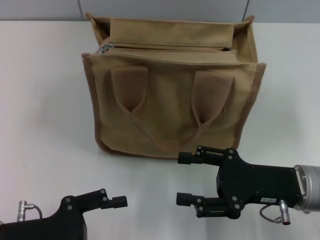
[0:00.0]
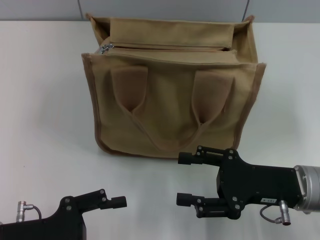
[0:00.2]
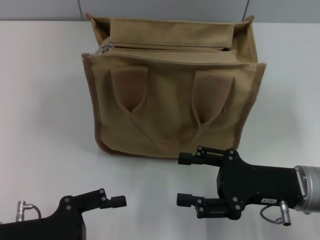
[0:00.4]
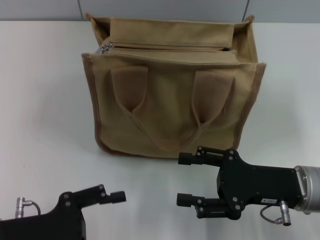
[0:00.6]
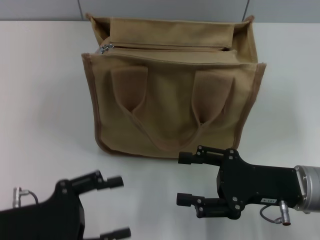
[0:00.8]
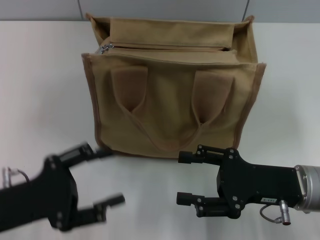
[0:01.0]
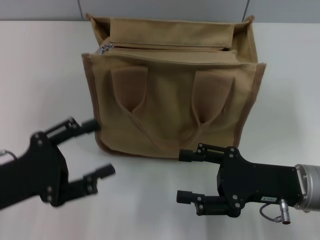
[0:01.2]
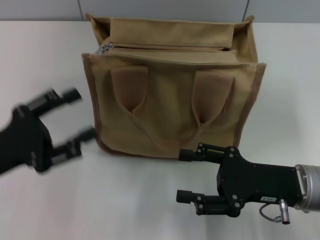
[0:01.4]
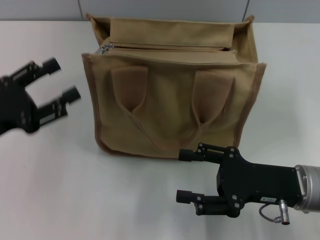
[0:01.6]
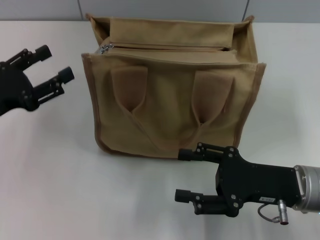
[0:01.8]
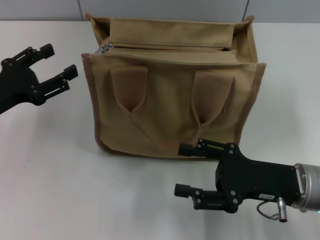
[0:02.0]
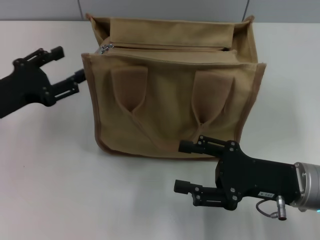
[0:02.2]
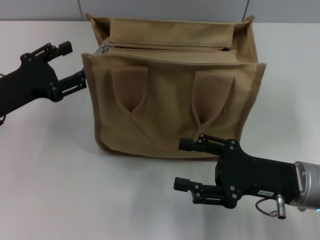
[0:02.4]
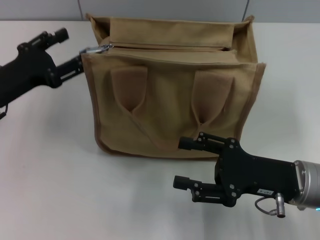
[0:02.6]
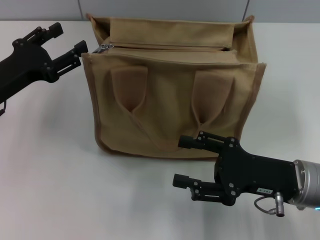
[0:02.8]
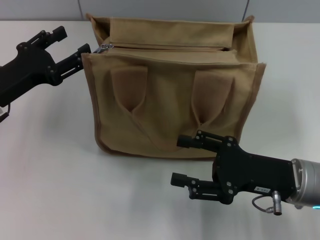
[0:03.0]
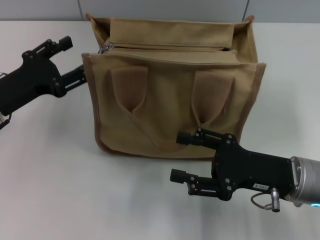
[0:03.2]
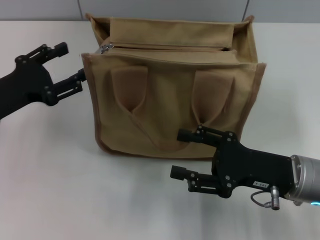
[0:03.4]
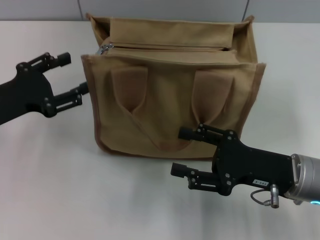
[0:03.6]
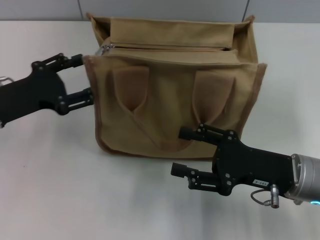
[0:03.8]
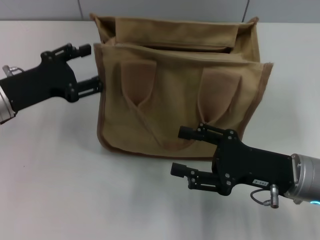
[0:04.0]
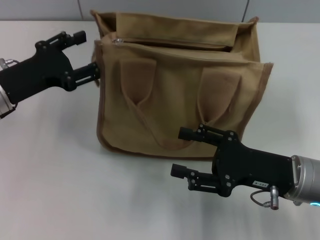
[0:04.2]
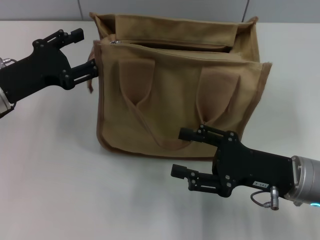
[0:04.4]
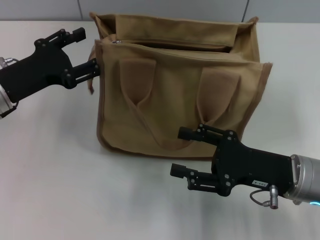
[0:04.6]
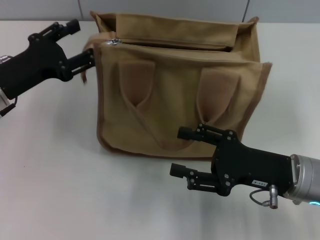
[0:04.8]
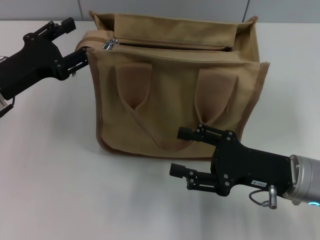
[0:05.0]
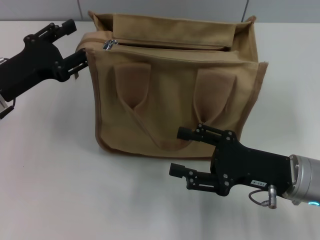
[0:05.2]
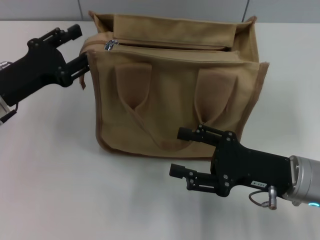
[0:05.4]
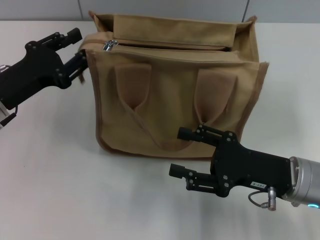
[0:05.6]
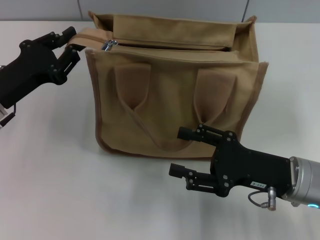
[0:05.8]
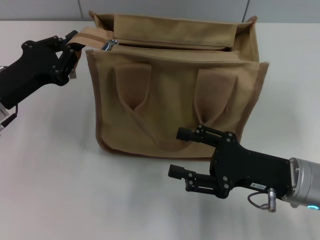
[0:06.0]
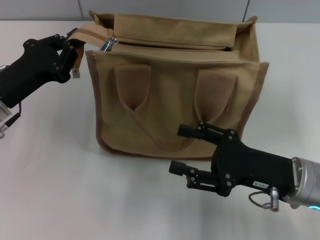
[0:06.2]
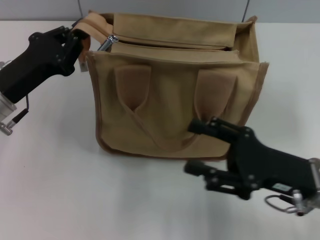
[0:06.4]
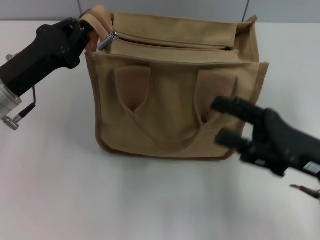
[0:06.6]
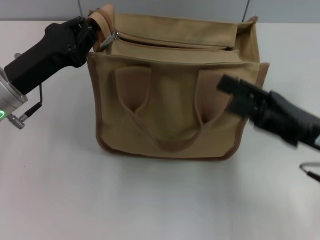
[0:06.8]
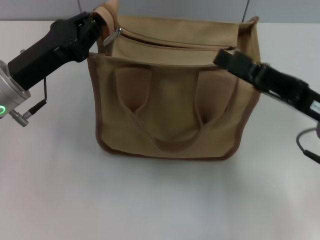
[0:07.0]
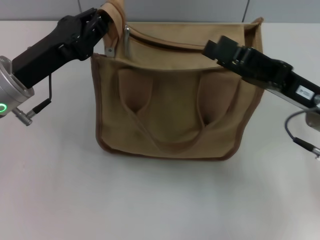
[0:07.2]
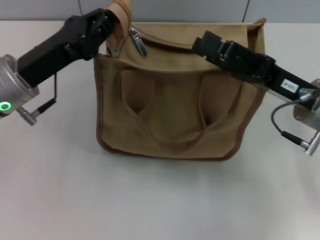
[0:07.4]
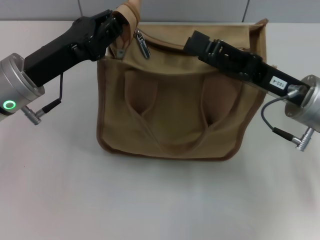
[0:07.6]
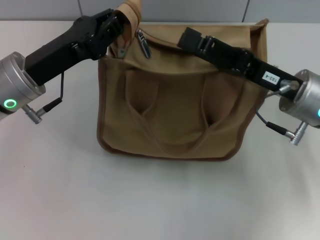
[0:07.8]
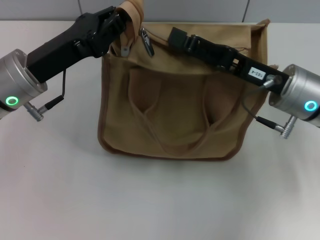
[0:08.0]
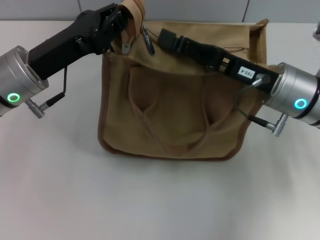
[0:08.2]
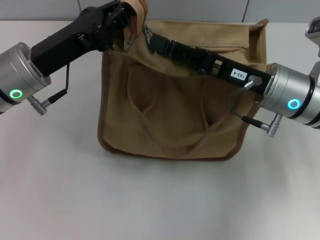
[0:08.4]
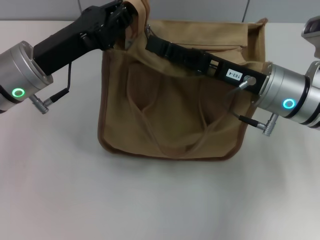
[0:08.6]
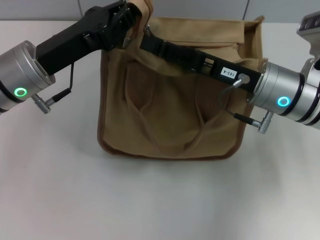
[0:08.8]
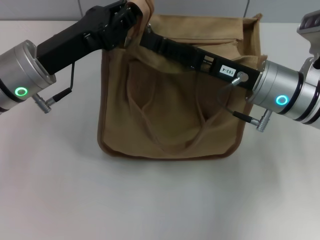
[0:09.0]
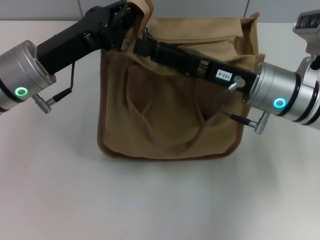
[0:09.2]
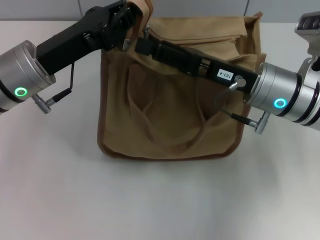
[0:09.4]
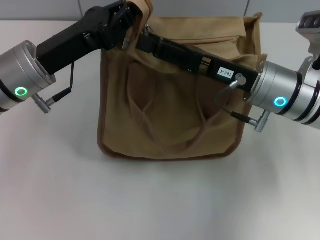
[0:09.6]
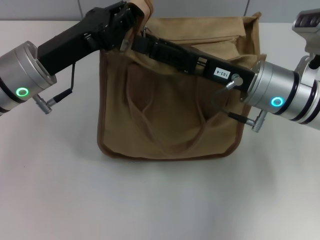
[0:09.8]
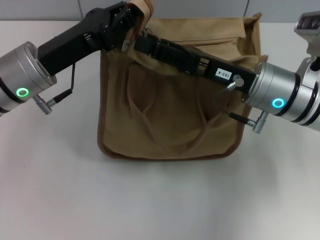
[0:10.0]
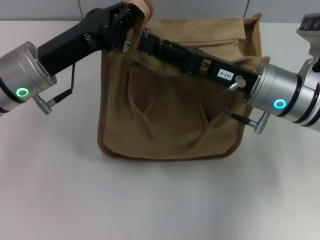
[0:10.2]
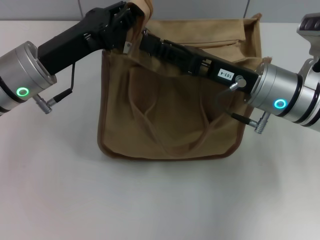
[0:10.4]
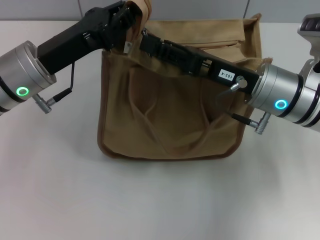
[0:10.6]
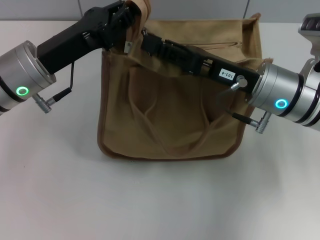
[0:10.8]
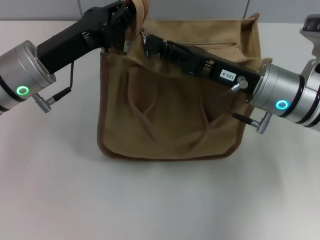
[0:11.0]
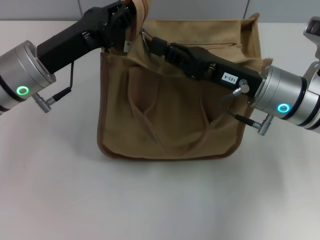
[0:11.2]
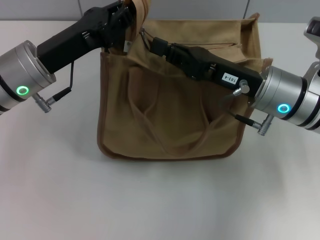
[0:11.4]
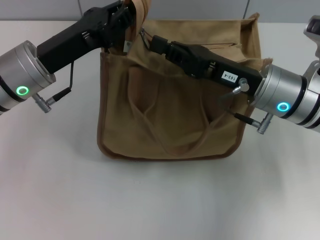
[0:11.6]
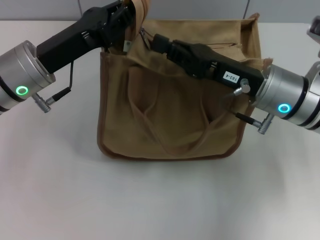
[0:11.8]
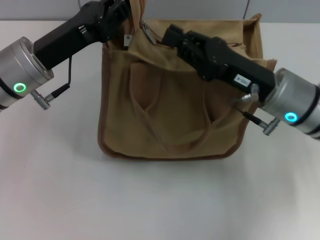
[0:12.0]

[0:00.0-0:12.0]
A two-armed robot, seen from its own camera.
0:00.0 to 0:01.6: The left gripper travels forward and upward by about 10 cm.
0:01.6 to 0:03.0: The left gripper moves forward, some 5 cm.
0:03.0 to 0:04.4: The grippers move only a little.
0:04.4 to 0:06.0: The left gripper closes up.
0:06.0 to 0:07.6: The left gripper moves to the right, some 5 cm, and closes its fingers. Meanwhile the right gripper moves forward and upward, approximately 10 cm.
0:07.6 to 0:09.0: The right gripper changes place by roughly 5 cm.
0:09.0 to 0:10.4: The two grippers keep their place.
0:10.4 to 0:12.0: The right gripper closes.

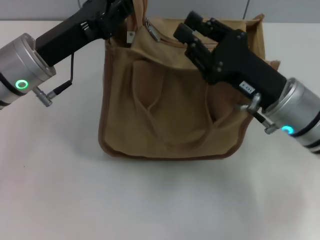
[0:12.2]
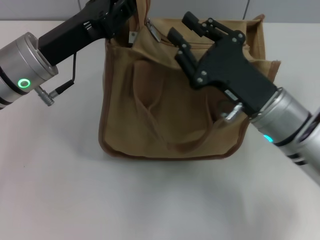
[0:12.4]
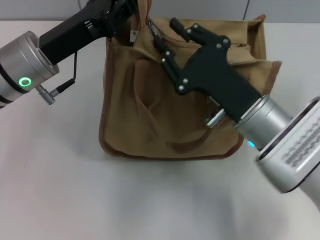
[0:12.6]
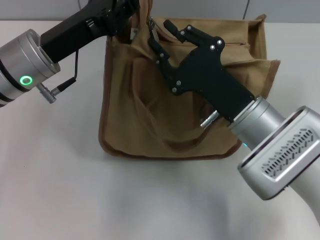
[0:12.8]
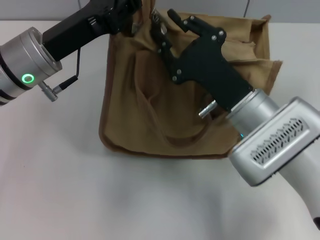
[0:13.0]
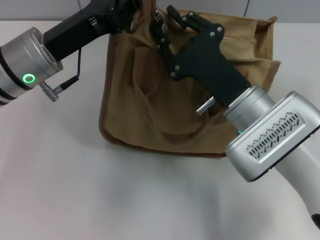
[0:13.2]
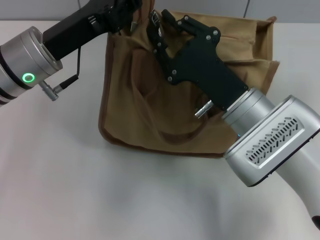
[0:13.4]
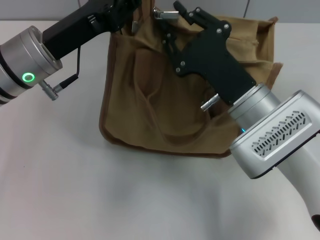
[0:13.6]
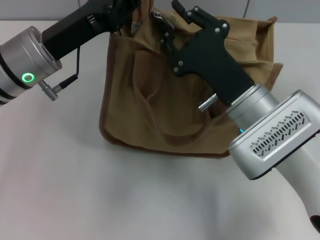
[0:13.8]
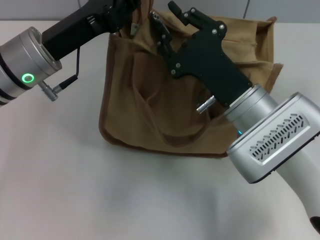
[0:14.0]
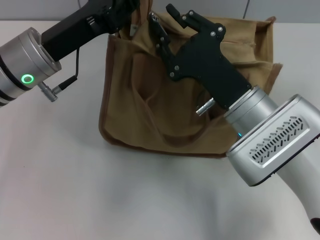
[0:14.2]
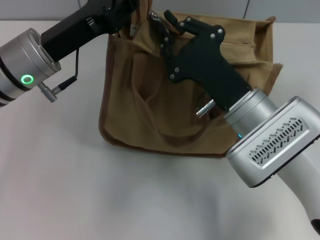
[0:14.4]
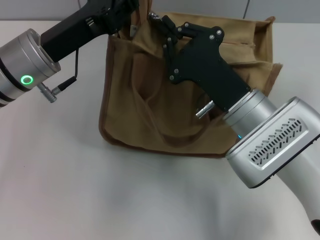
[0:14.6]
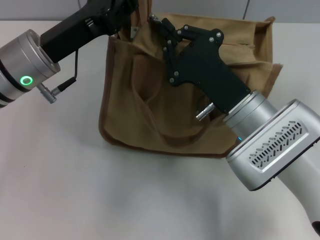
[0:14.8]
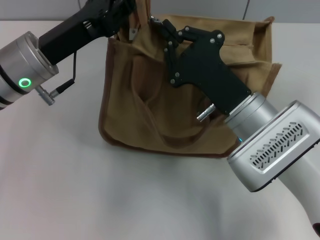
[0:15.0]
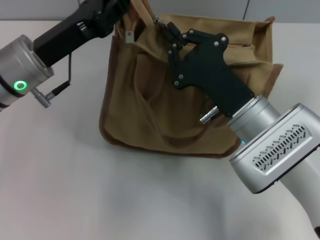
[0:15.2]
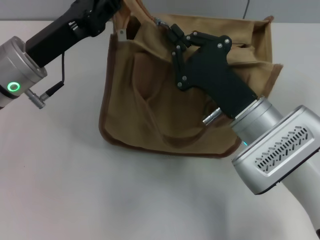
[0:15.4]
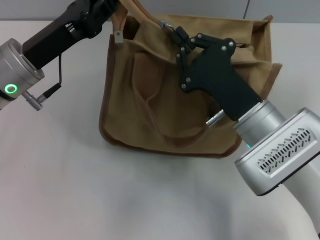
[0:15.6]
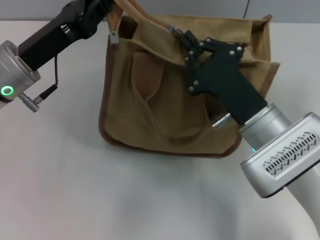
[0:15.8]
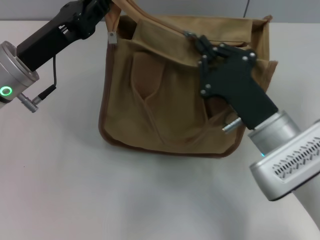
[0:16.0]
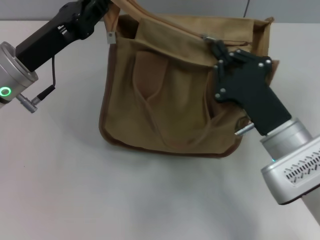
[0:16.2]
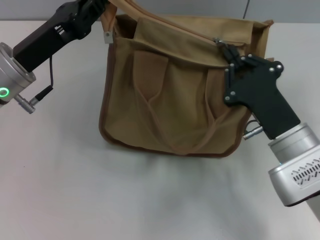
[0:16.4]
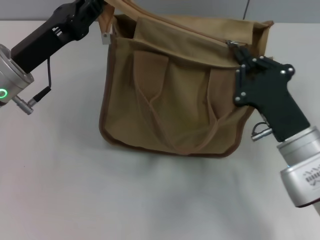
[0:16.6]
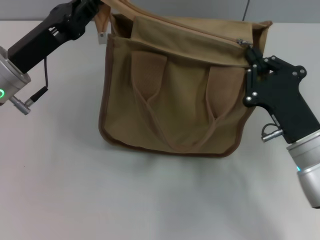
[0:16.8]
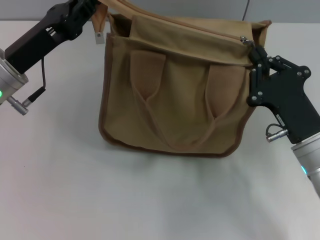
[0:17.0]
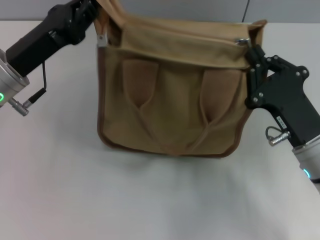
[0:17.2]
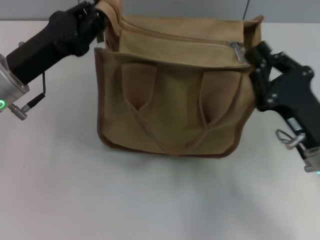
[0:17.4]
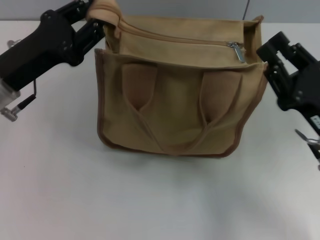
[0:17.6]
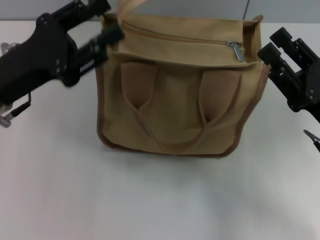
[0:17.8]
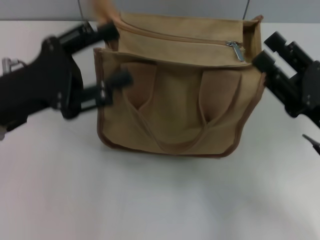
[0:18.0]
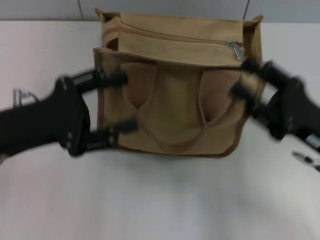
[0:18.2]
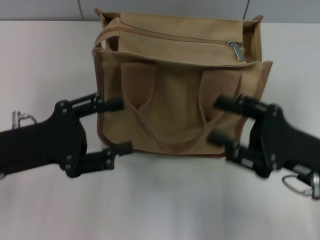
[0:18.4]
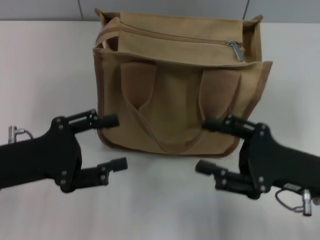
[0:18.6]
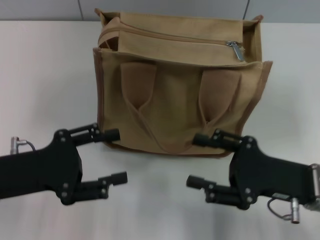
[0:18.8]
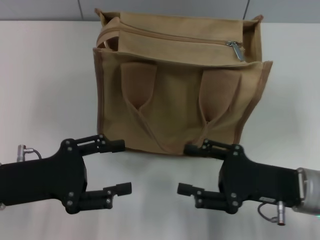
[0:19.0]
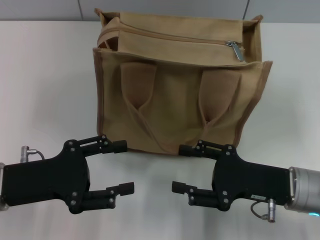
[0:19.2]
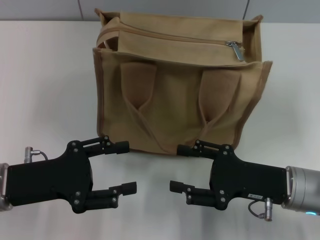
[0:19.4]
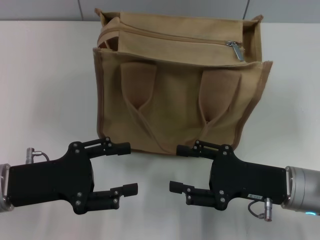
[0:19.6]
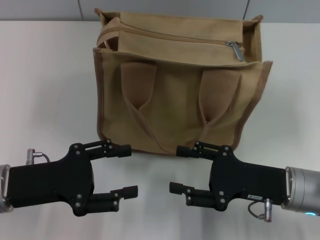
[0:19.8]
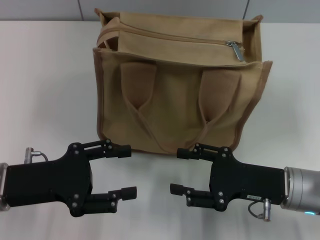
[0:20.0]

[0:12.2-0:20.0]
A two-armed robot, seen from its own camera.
Step, 0:12.2 to 0:17.2: Pull up the zipper with your right hand.
Step, 0:17.4 to 0:17.6: Grab the zipper with your left hand.
0:12.2 to 0:13.8: The right gripper heads to the left, covering approximately 5 cm.
0:13.8 to 0:15.4: The right gripper closes up.
0:15.4 to 0:16.8: The right gripper is displaced to the right by approximately 5 cm.
0:16.8 to 0:18.4: The left gripper goes approximately 10 cm backward, and opens up, while the right gripper opens.
0:18.4 to 0:20.0: The right gripper ends up some 5 cm from where it was.

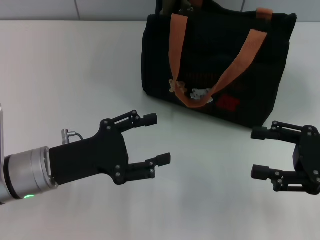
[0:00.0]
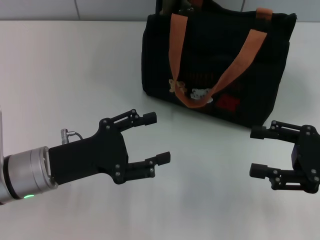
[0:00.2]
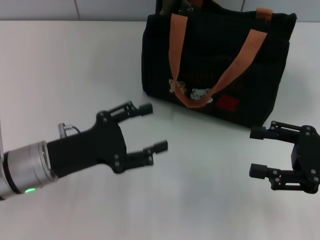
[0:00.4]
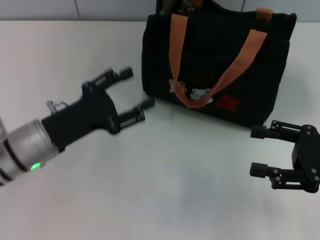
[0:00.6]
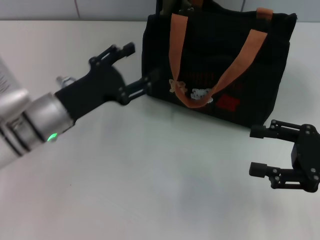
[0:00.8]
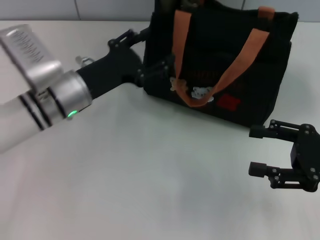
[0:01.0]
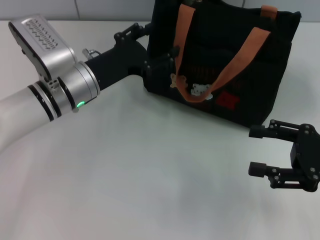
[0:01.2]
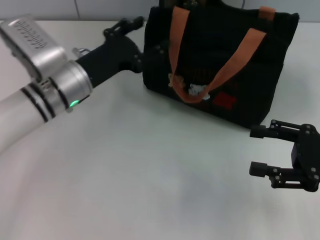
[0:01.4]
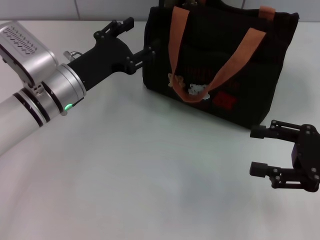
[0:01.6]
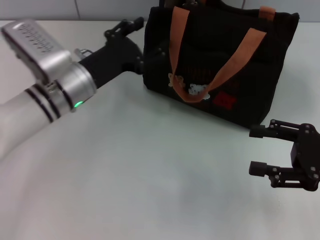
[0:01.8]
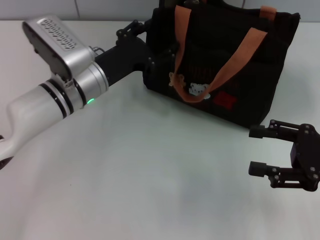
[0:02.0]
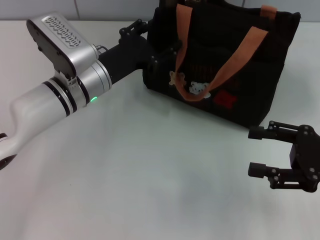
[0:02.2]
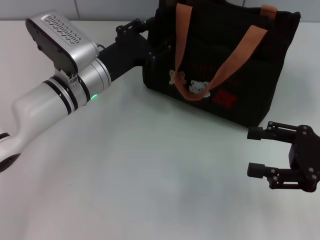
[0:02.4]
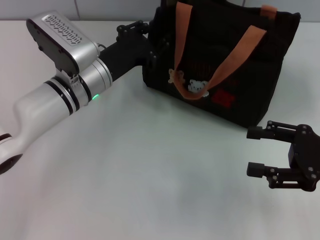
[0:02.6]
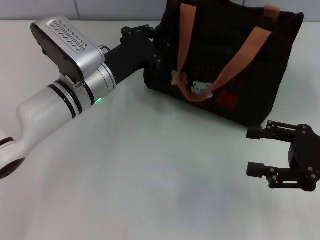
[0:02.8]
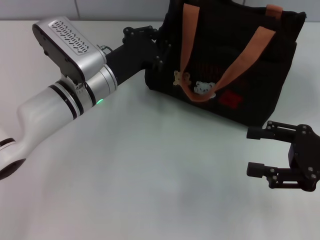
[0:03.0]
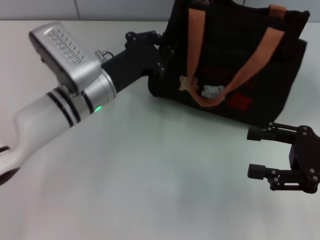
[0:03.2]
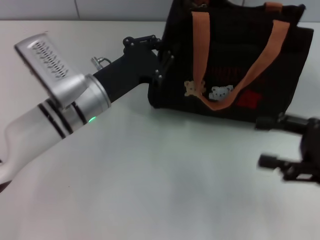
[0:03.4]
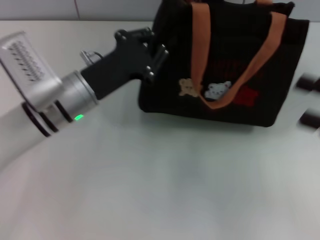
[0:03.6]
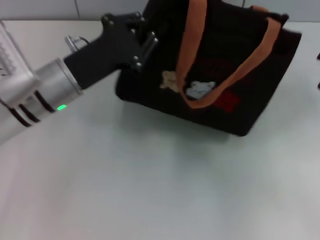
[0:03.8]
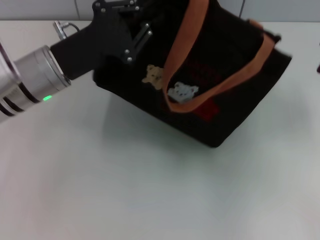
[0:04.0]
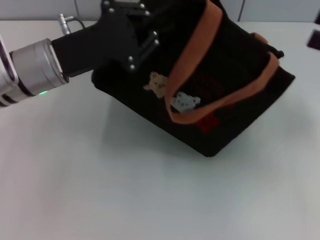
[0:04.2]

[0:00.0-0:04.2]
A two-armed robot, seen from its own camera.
0:00.0 to 0:01.4: The left gripper moves forward, about 10 cm.
0:01.4 to 0:02.8: The left gripper closes up.
0:02.8 to 0:04.2: The left gripper shifts approximately 10 cm upward and to the left. Meanwhile the right gripper shifts some 10 cm upward.
